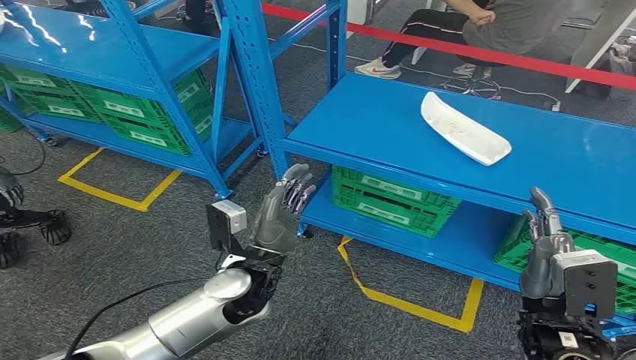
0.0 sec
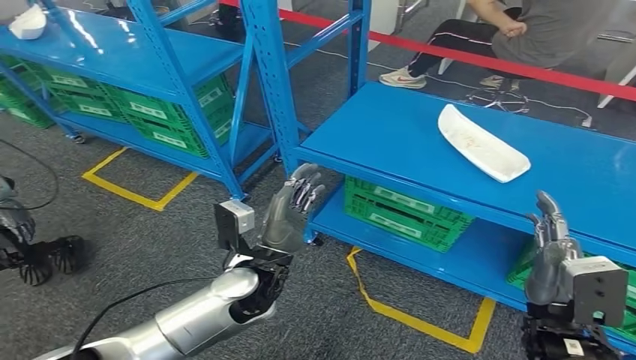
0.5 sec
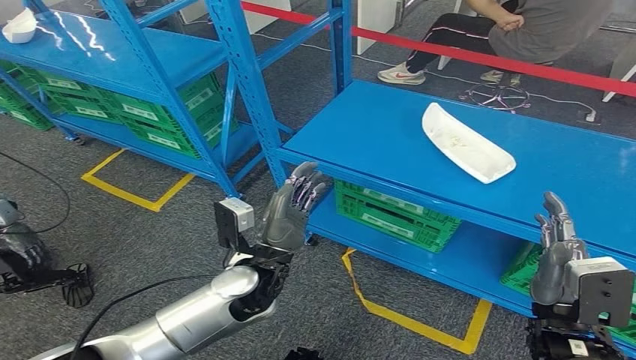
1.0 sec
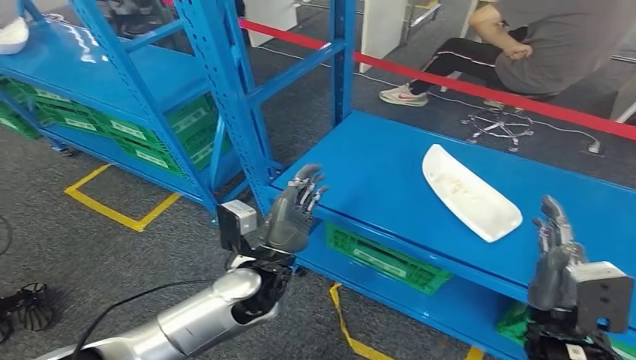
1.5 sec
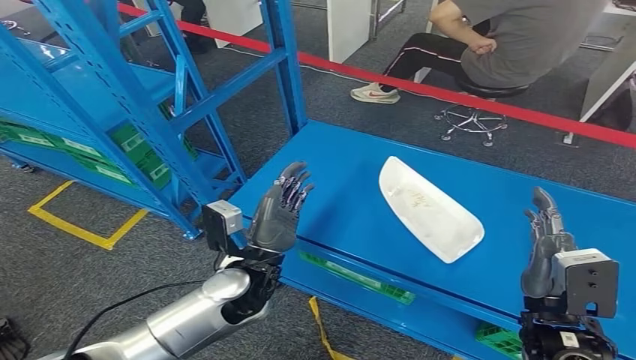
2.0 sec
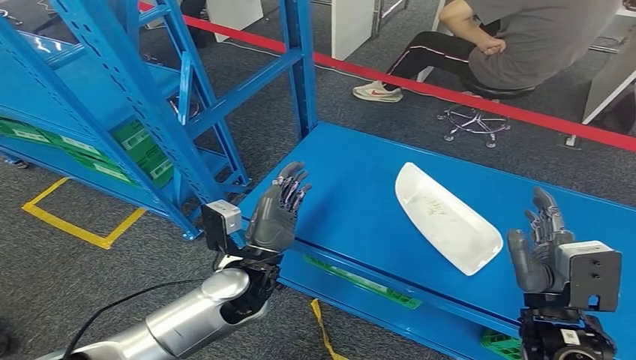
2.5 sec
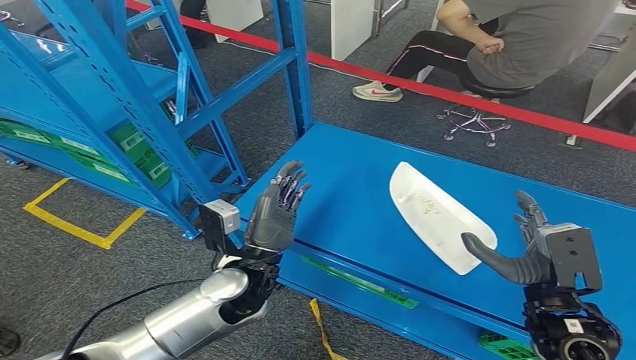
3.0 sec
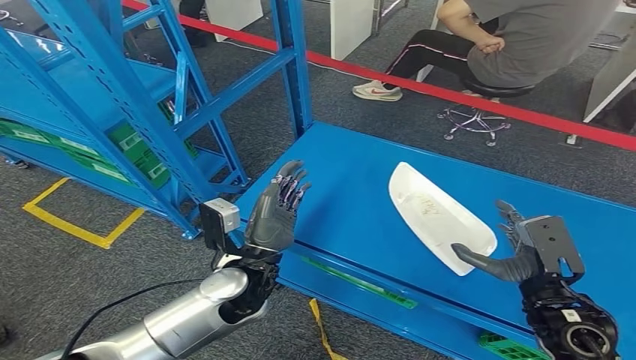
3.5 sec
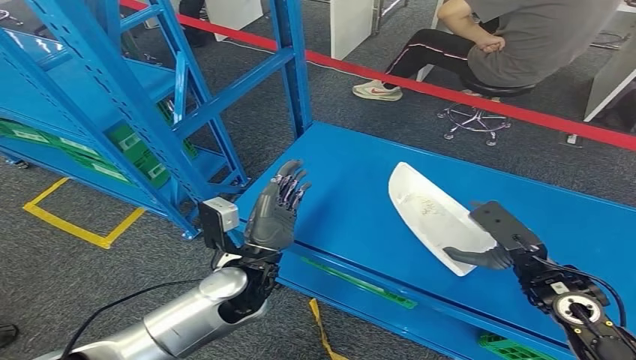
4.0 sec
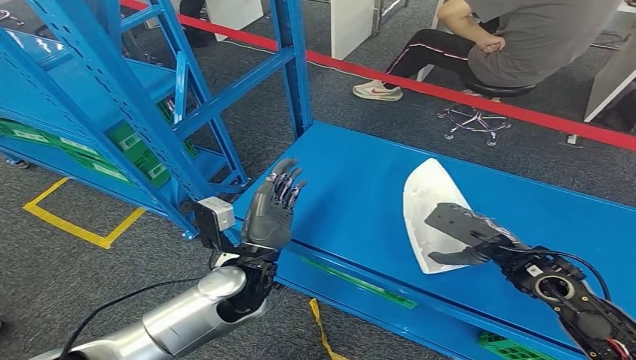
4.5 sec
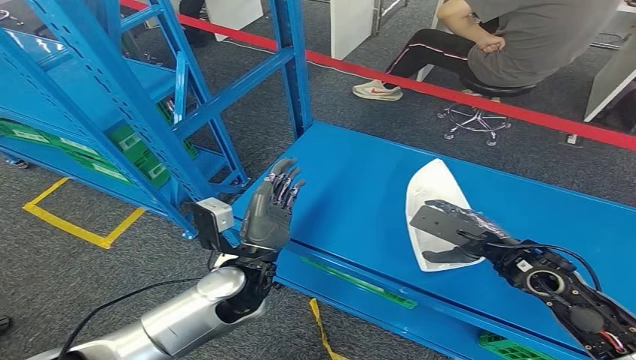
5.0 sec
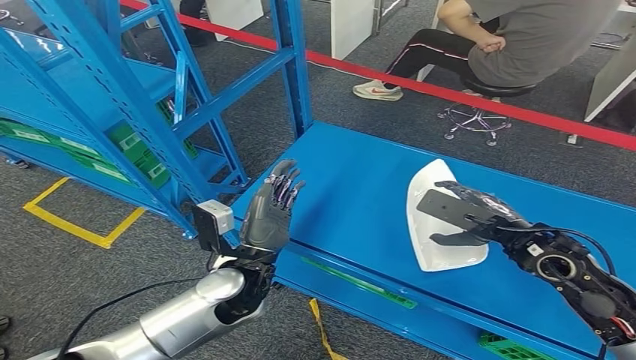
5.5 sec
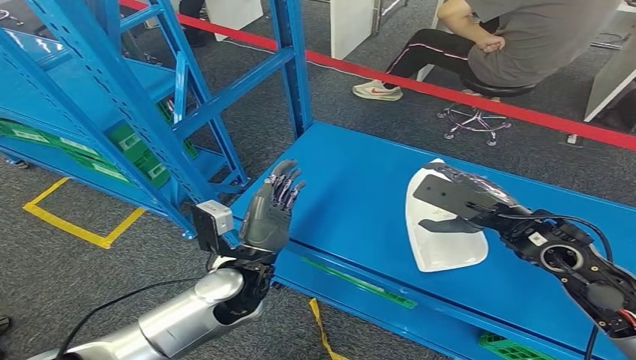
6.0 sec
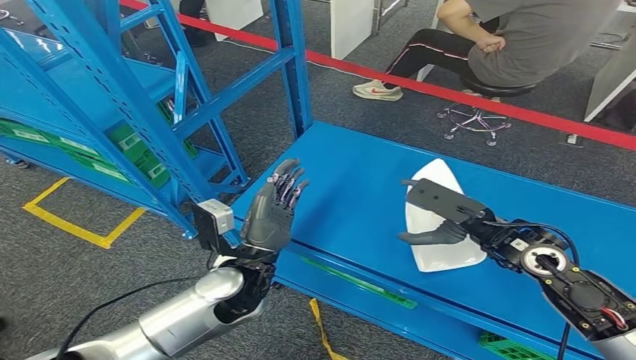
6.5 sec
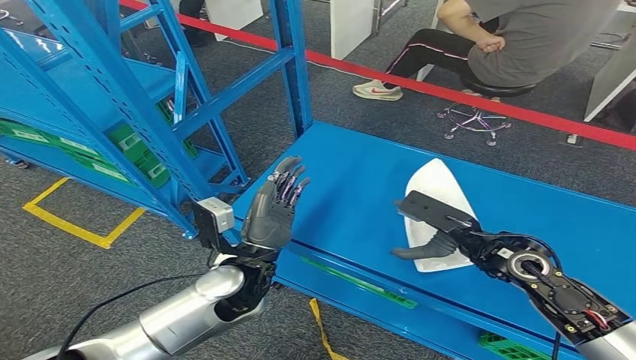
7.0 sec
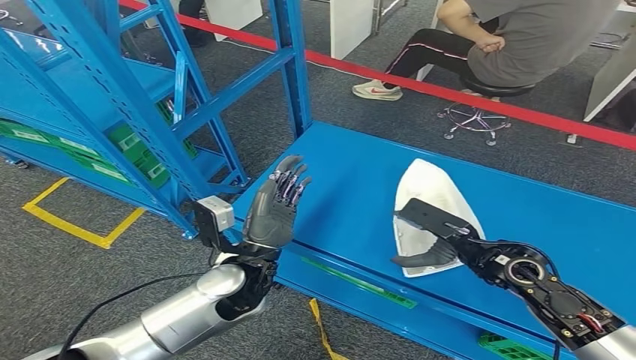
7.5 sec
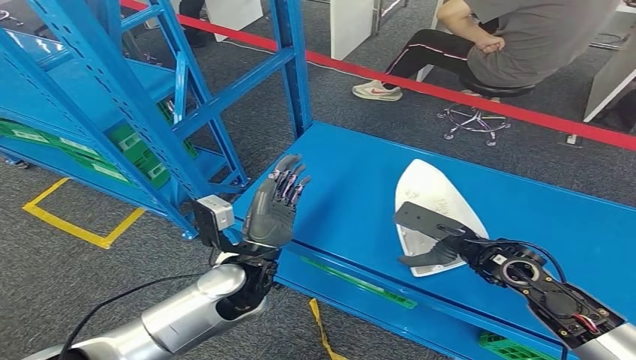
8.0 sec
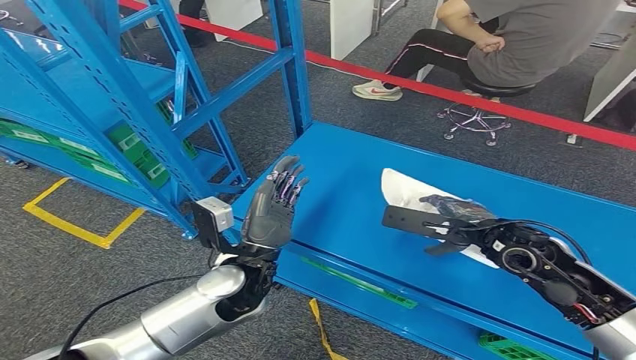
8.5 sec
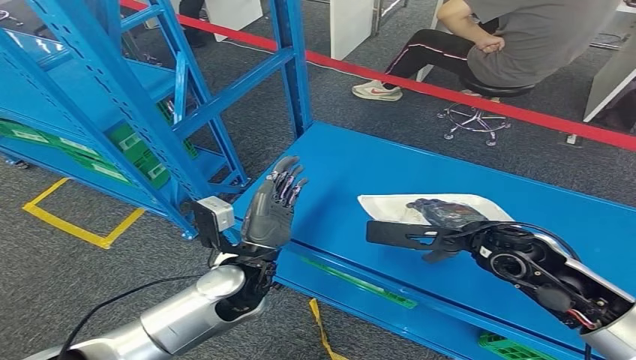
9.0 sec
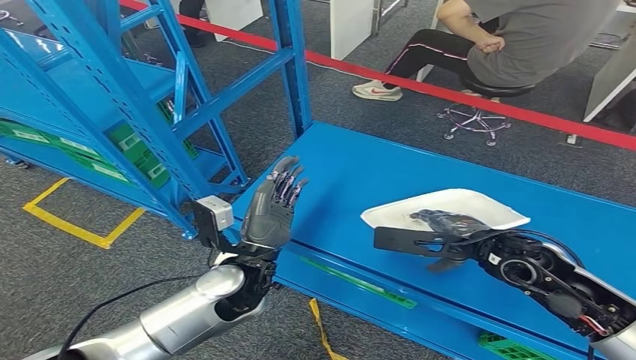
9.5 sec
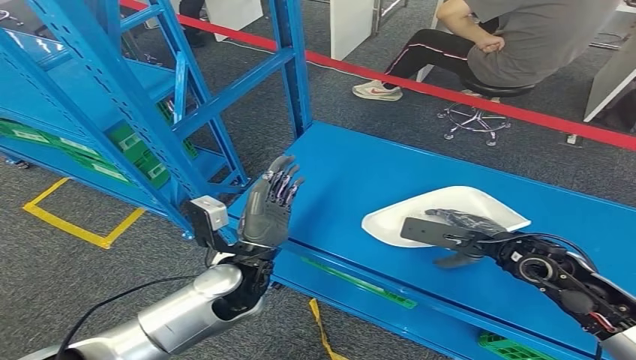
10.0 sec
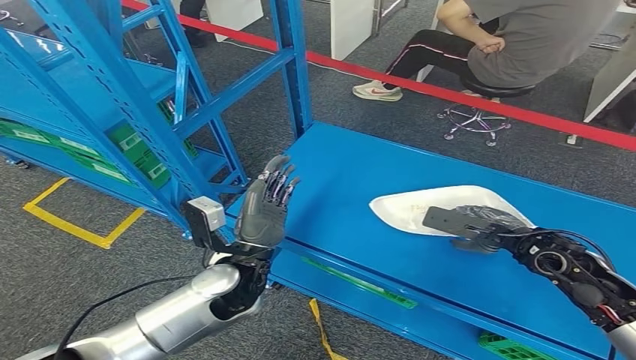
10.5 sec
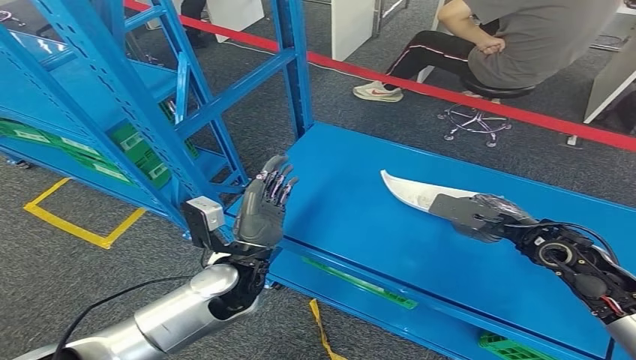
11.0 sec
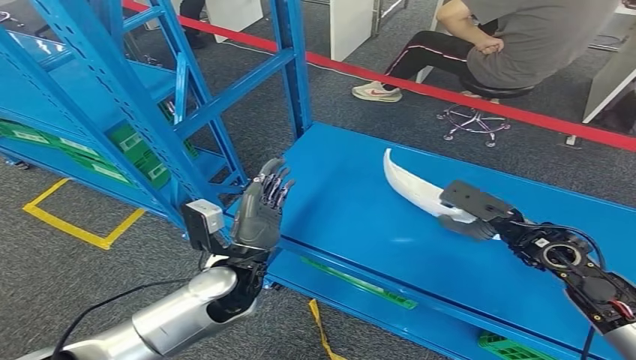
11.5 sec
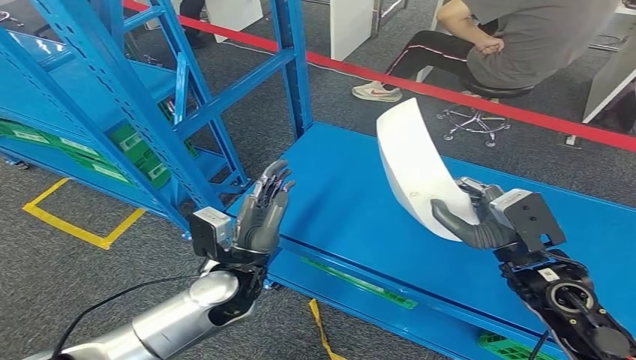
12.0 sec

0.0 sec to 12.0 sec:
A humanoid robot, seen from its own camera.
2.0 sec to 4.0 sec: The right hand travels forward by some 10 cm.
4.0 sec to 6.0 sec: The right hand moves upward, about 5 cm.
6.0 sec to 8.0 sec: The right hand travels downward by about 10 cm.
10.0 sec to 12.0 sec: The right hand heads backward, covering some 5 cm.

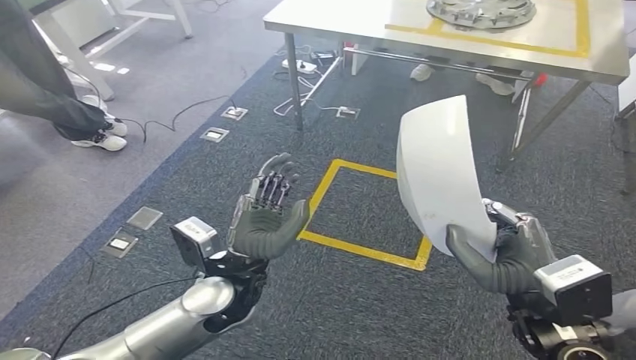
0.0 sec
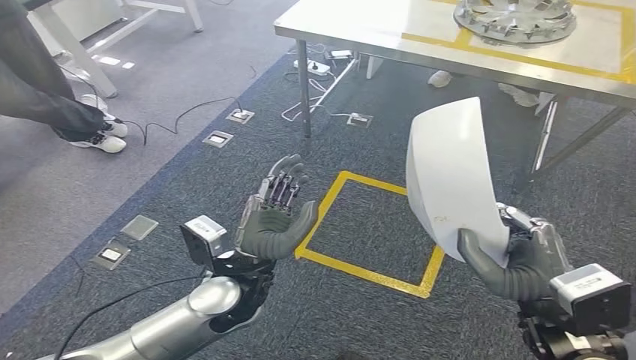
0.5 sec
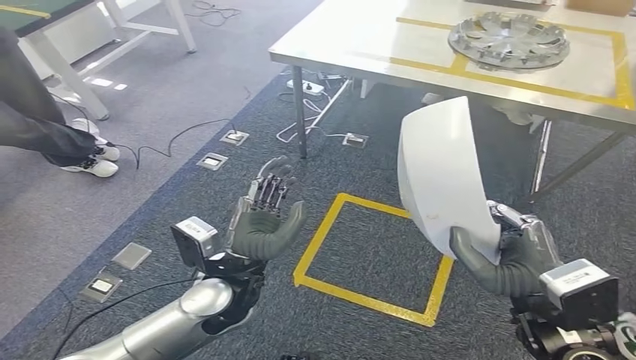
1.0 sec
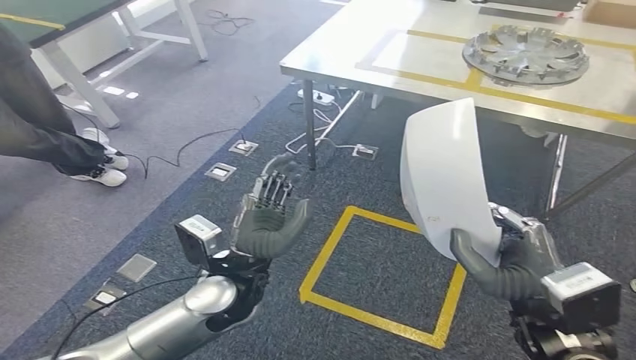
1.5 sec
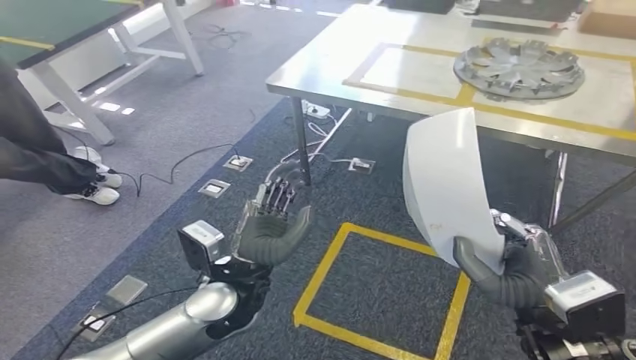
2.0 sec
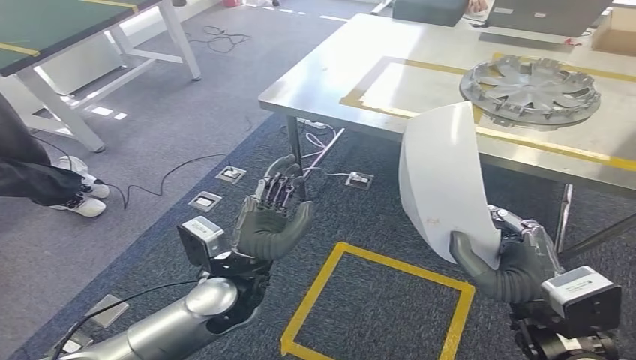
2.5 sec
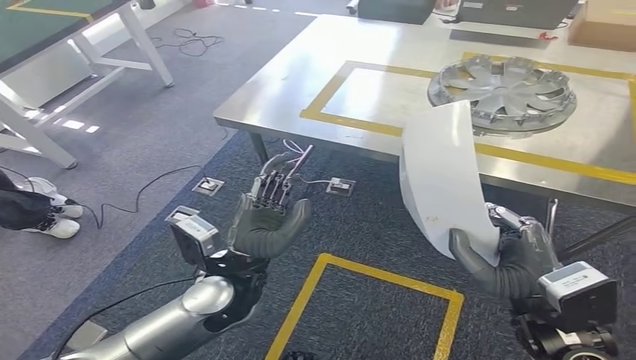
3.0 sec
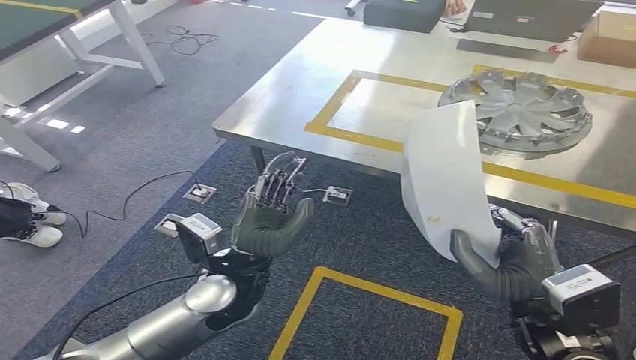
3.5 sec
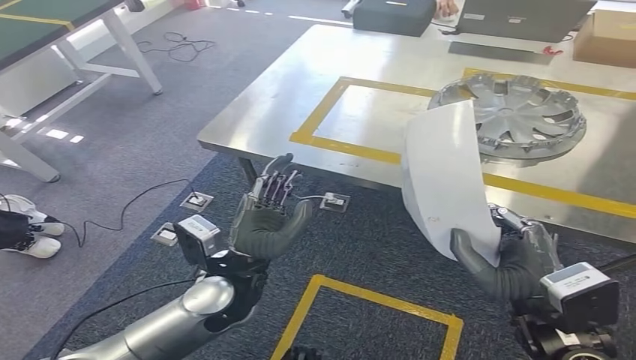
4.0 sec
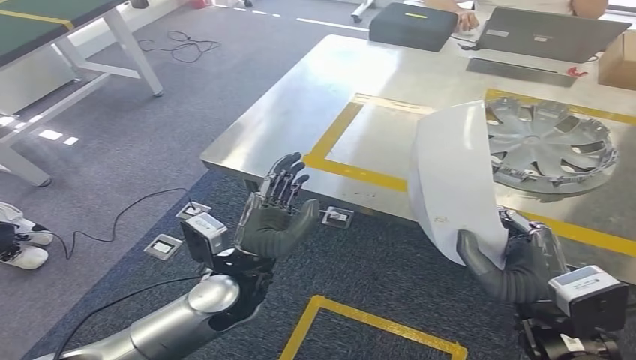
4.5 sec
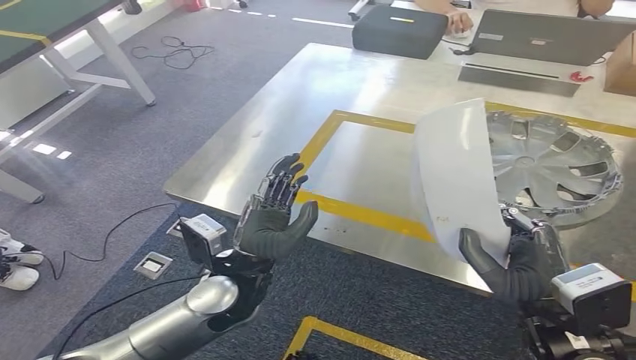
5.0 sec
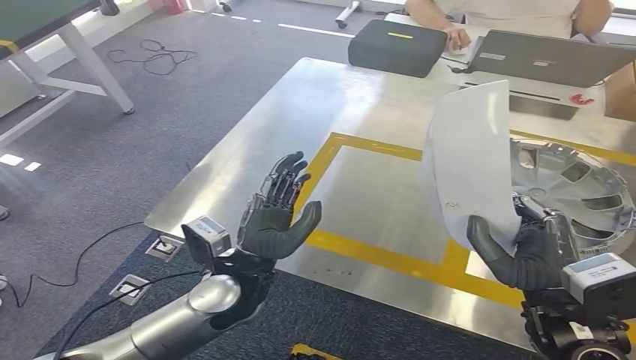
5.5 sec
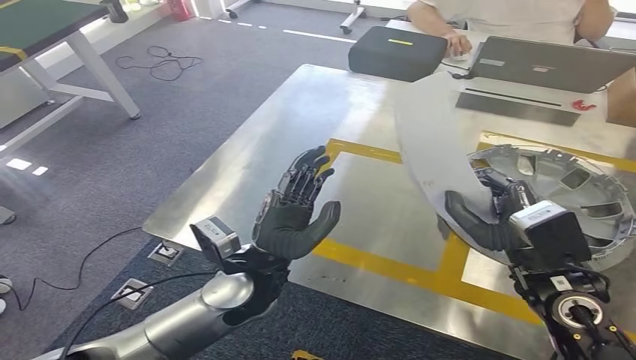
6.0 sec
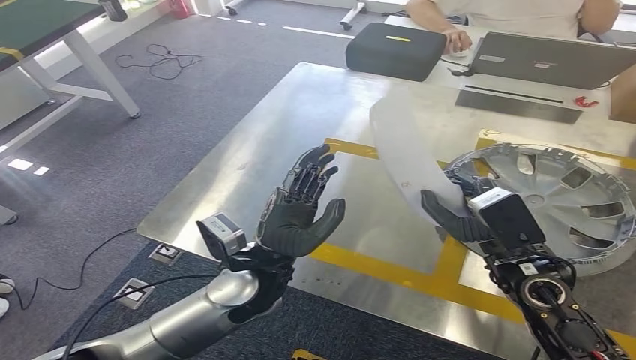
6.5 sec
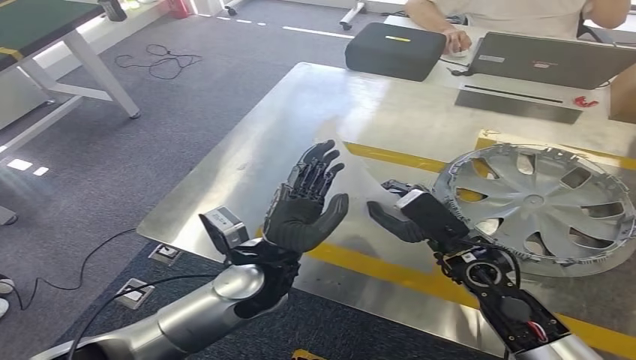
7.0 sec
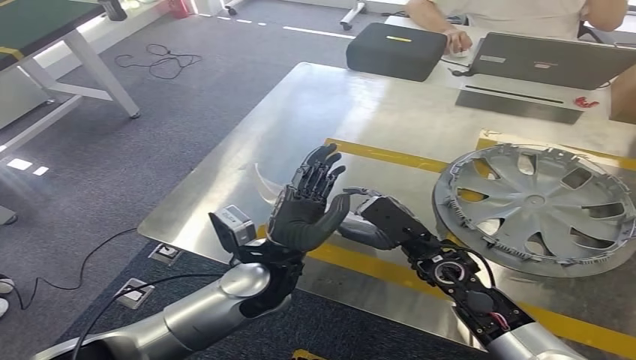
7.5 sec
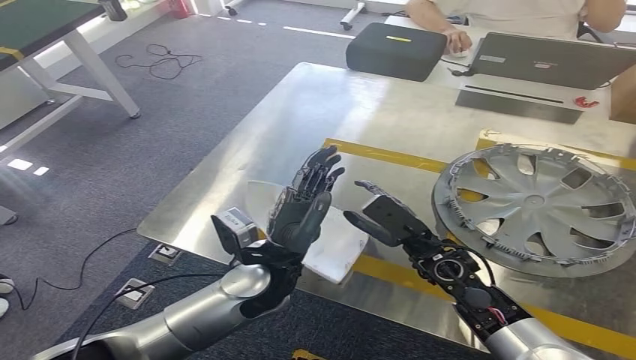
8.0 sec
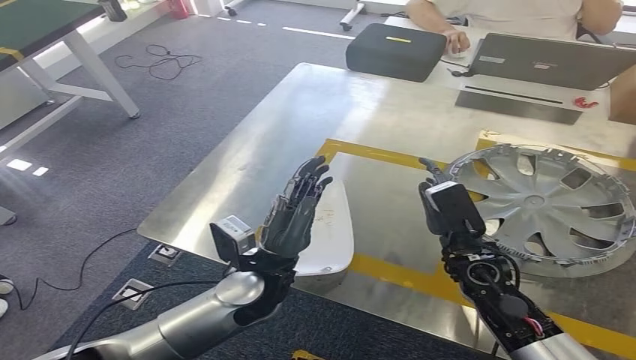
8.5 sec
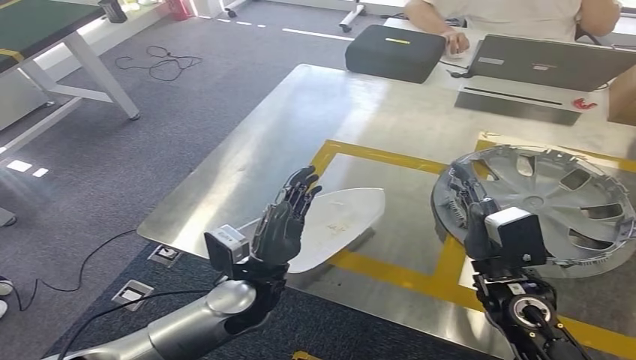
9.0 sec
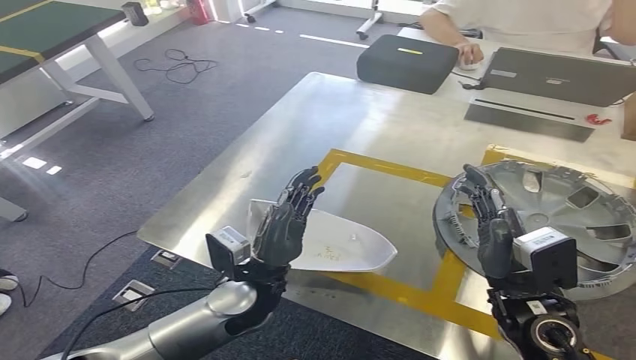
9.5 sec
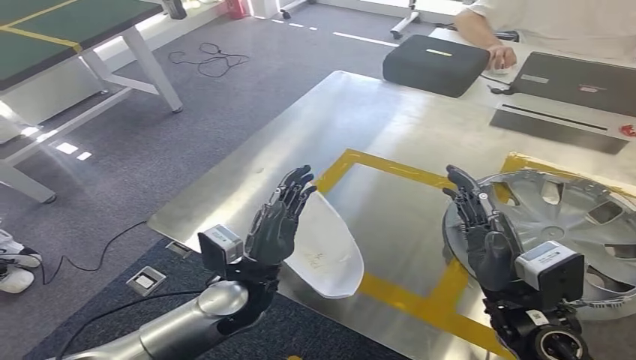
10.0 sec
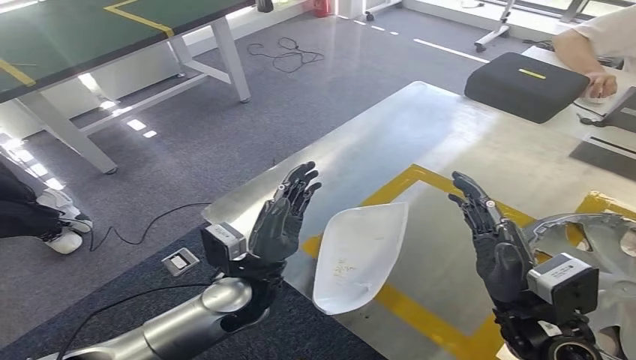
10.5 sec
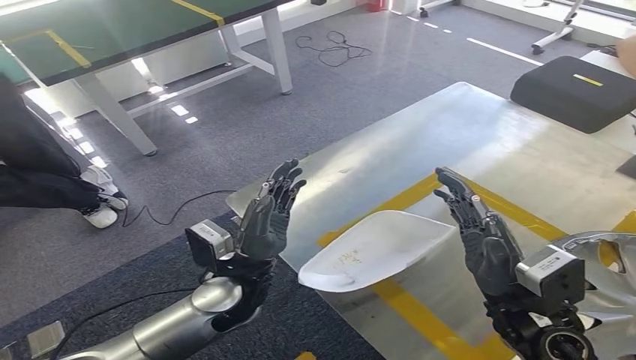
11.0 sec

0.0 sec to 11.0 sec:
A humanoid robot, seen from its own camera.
Step, 0.0 sec to 5.5 sec: Move the small component to the workbench.
Step, 6.0 sec to 9.5 sec: Insert the small component into the corresponding slot on the workbench.
